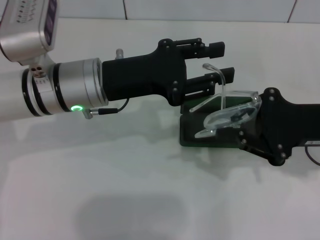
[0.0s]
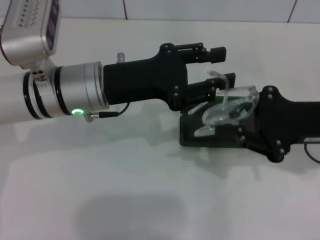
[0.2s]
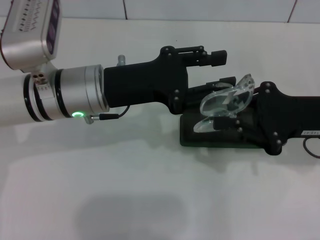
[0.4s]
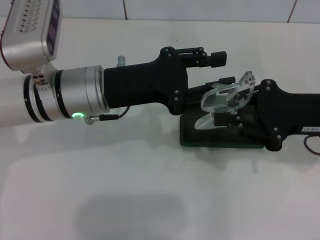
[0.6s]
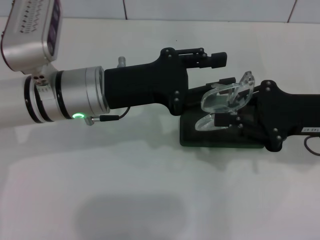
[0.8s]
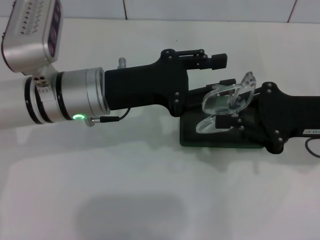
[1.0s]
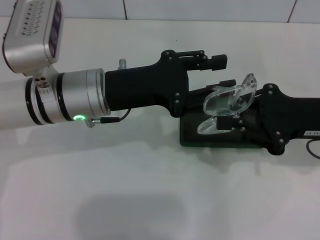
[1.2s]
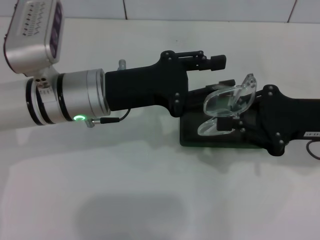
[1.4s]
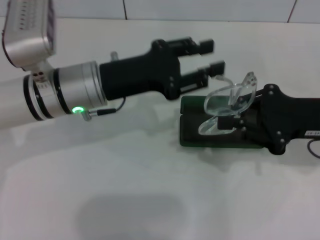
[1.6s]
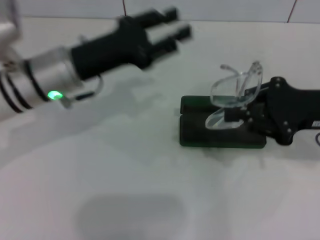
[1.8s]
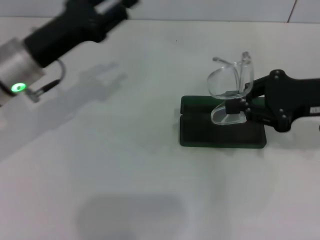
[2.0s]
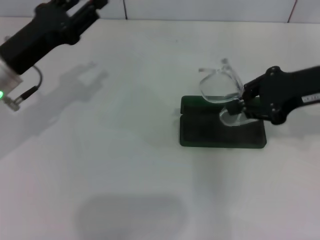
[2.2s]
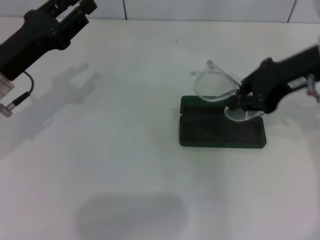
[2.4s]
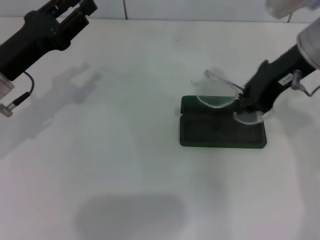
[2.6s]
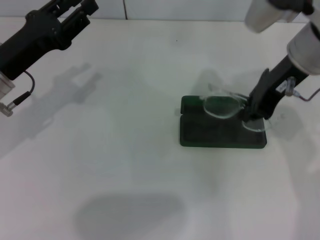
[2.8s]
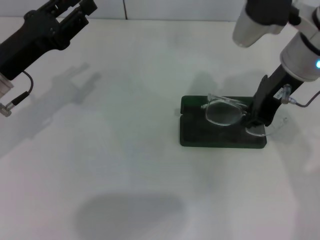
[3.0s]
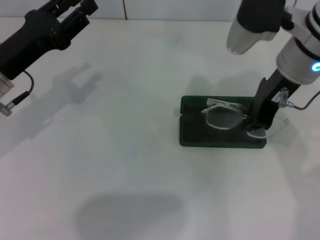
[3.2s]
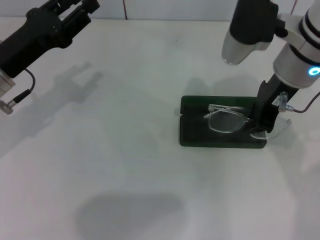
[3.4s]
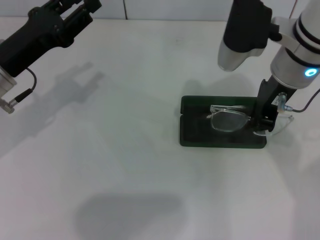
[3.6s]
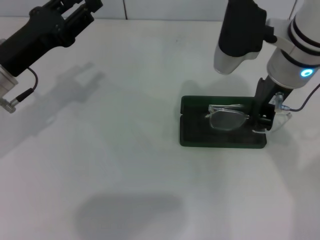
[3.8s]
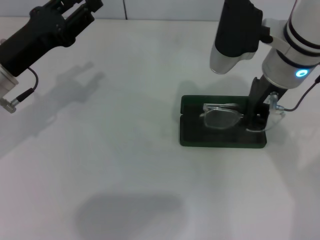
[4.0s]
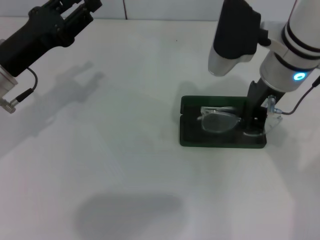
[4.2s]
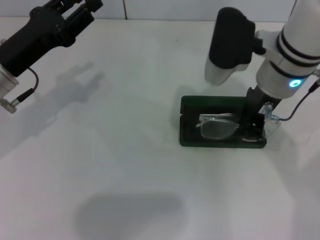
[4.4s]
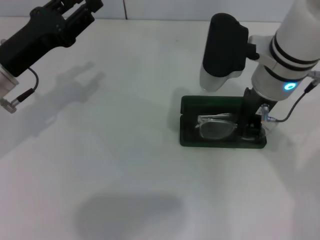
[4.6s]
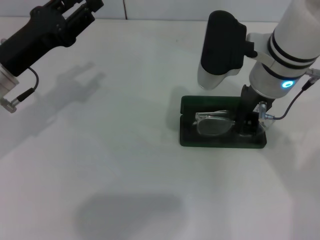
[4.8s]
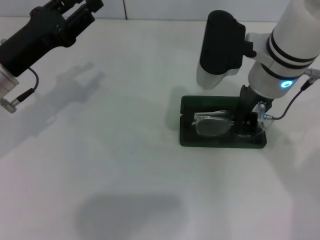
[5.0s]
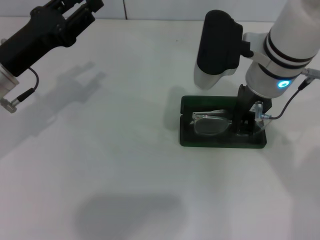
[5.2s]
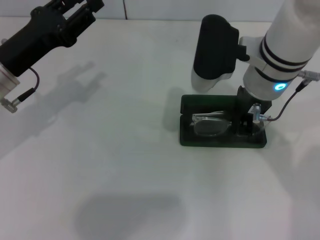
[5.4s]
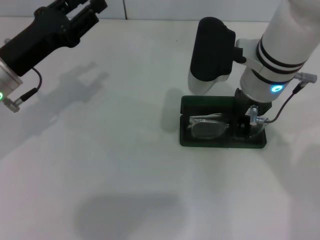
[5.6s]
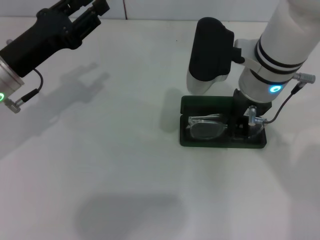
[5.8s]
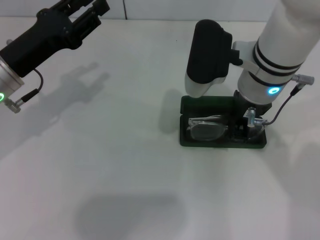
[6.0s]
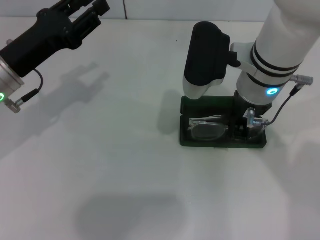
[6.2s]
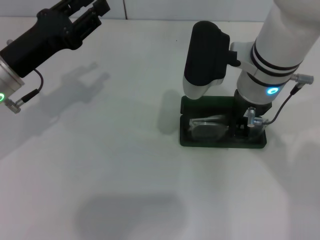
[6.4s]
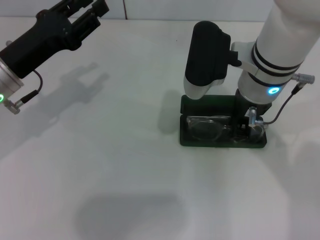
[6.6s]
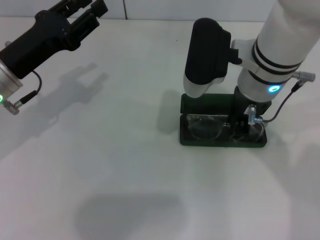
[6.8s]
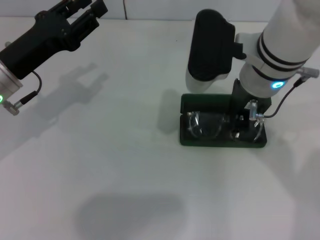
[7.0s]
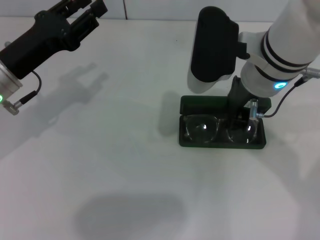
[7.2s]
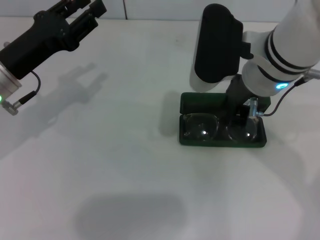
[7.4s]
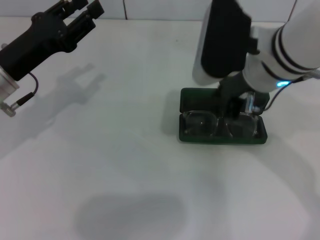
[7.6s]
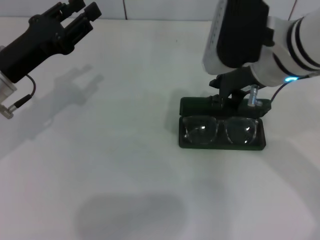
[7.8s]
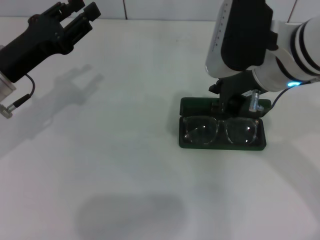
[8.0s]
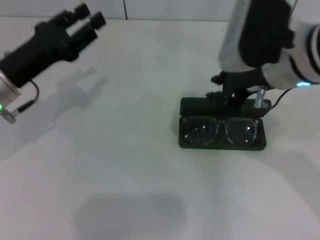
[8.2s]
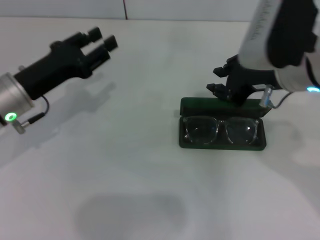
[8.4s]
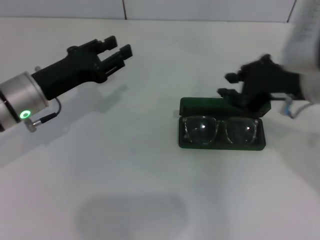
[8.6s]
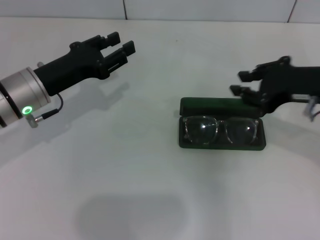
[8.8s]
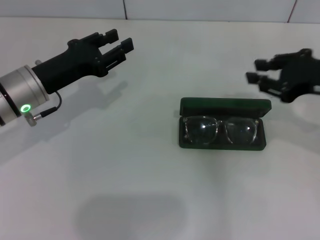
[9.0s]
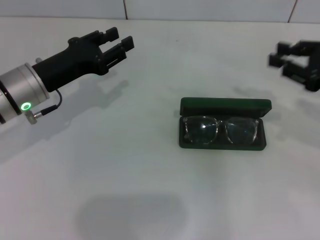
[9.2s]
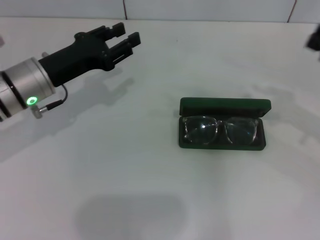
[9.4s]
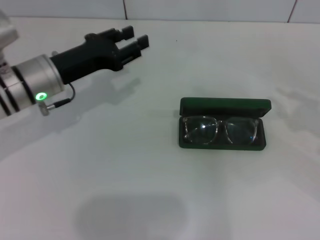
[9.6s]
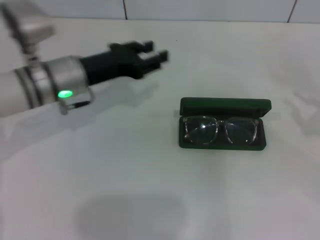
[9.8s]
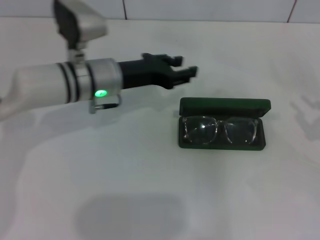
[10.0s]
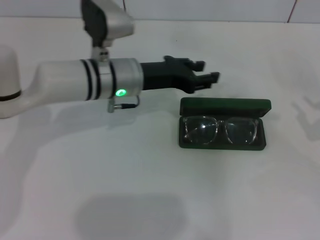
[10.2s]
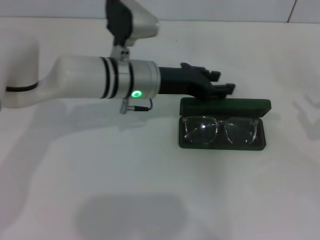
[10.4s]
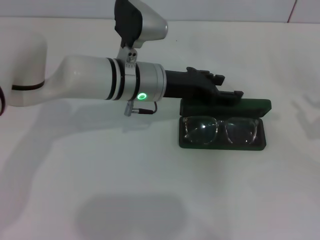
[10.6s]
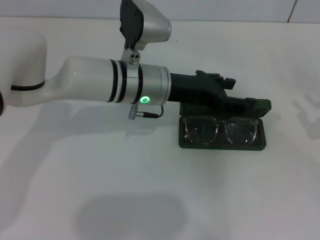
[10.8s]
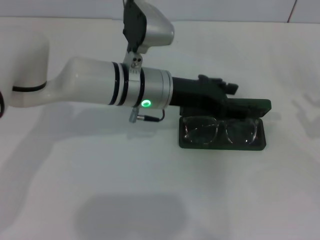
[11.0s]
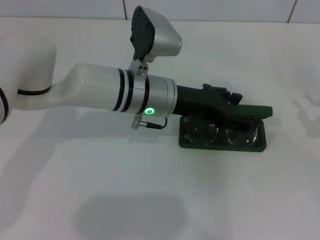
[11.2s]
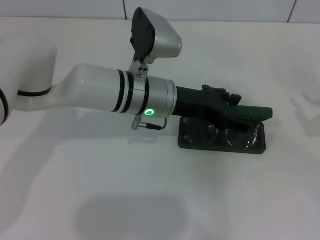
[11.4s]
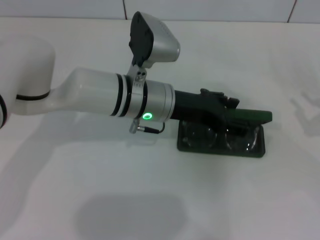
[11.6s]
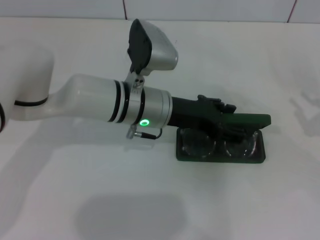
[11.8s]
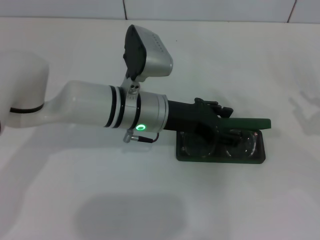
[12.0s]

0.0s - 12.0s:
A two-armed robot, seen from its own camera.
Step, 0.8s - 7.4s: Put the glasses into the case with your right hand.
0.0s - 1.6s: The grippers stay close to where they were, moving slightly.
1.6s - 3.0s: The left gripper heads to the left, covering some 10 cm; the right gripper moves to the left, upward and forward, about 15 cm.
3.0s - 4.4s: There are only small adjustments of the grippers.
4.4s - 7.6s: The grippers make only small movements.
7.6s - 9.0s: The right gripper is displaced to the right by approximately 15 cm.
9.0s - 10.4s: The right gripper goes about 15 cm to the right, downward and backward. Meanwhile the left gripper moves to the right, about 15 cm.
10.4s - 12.0s: The grippers move only a little.

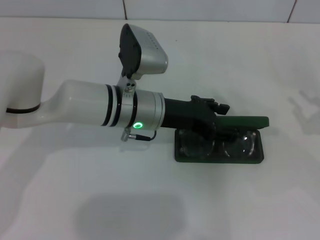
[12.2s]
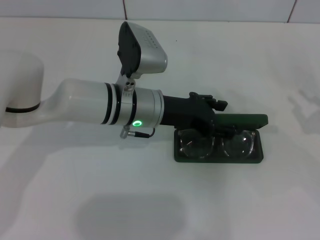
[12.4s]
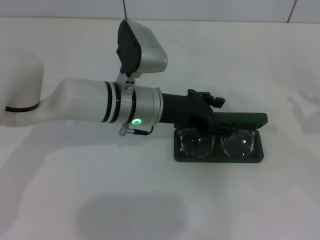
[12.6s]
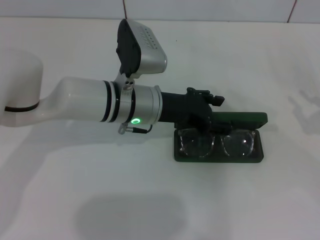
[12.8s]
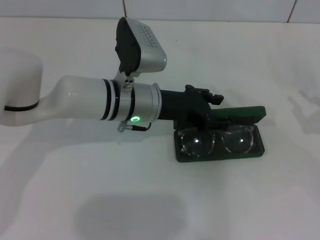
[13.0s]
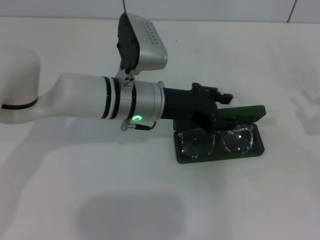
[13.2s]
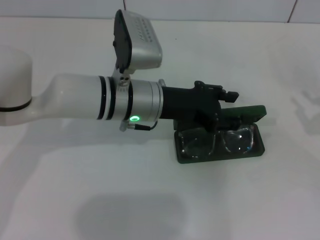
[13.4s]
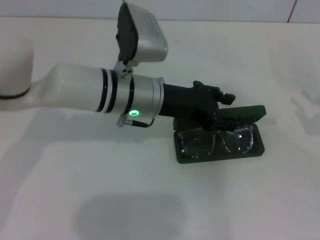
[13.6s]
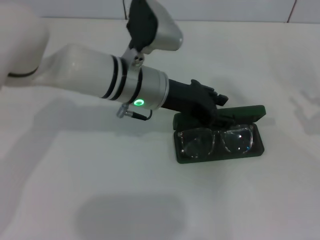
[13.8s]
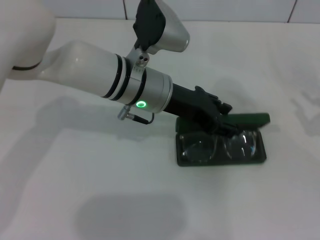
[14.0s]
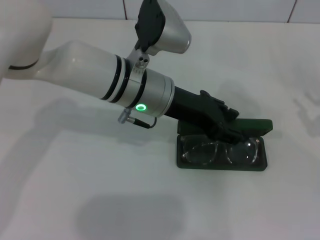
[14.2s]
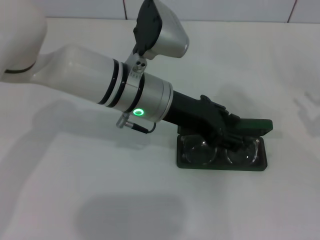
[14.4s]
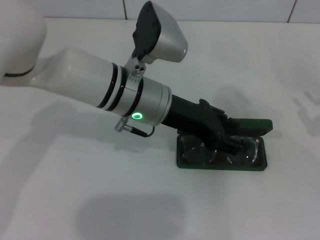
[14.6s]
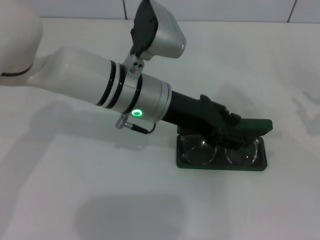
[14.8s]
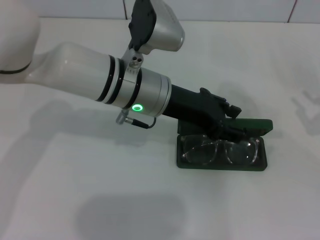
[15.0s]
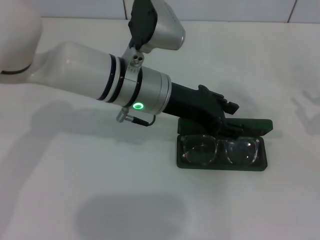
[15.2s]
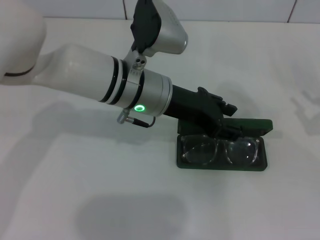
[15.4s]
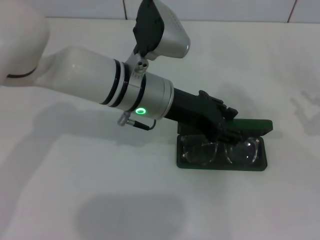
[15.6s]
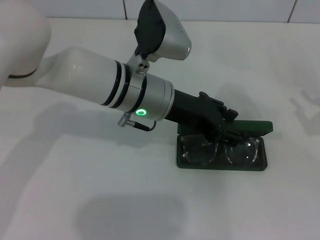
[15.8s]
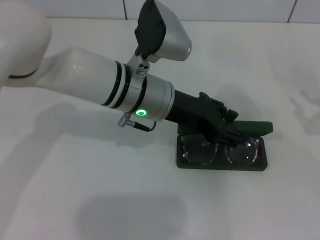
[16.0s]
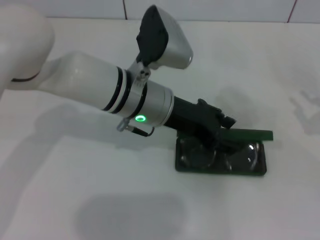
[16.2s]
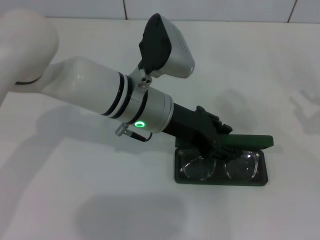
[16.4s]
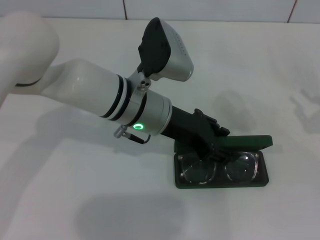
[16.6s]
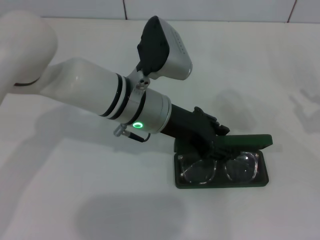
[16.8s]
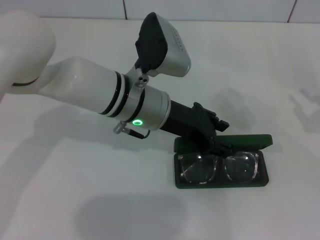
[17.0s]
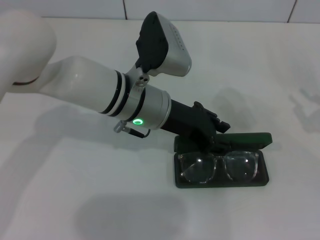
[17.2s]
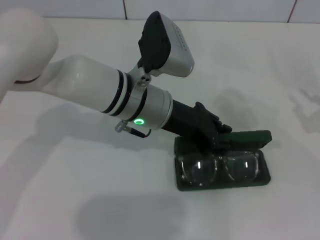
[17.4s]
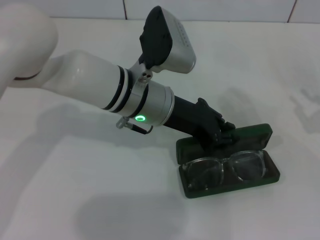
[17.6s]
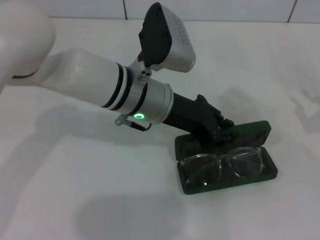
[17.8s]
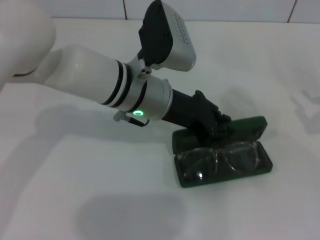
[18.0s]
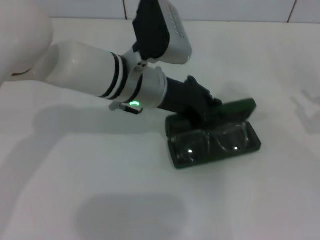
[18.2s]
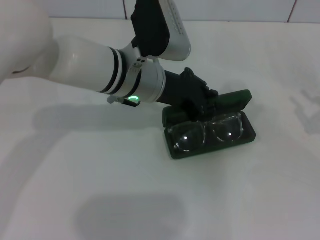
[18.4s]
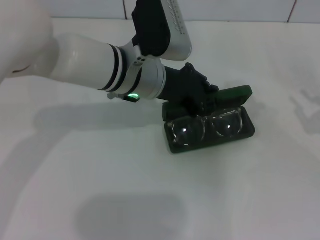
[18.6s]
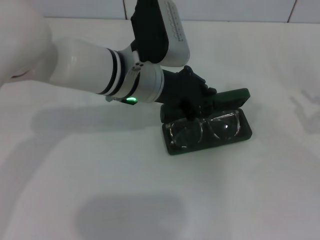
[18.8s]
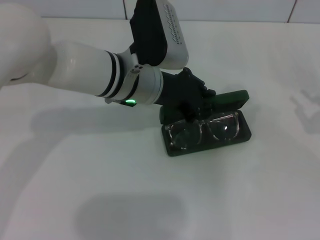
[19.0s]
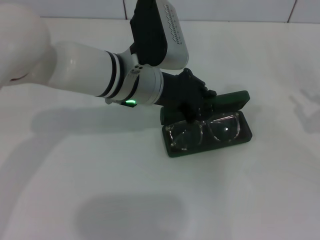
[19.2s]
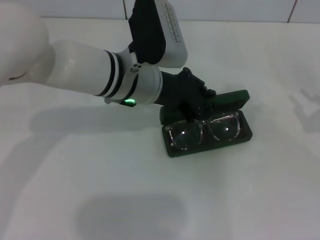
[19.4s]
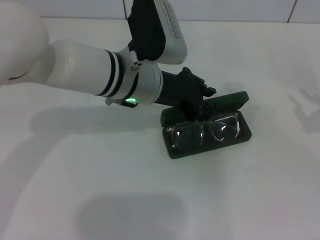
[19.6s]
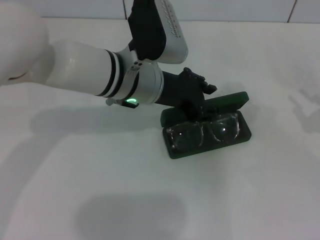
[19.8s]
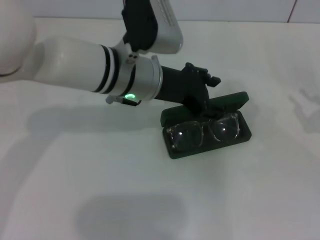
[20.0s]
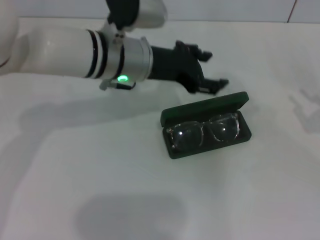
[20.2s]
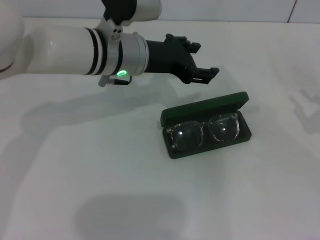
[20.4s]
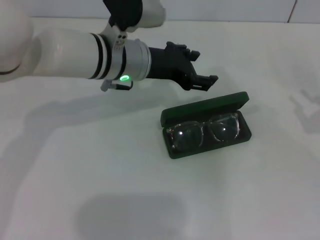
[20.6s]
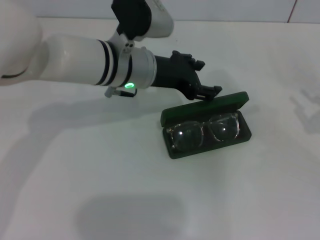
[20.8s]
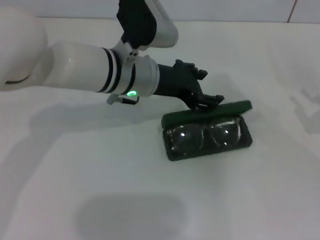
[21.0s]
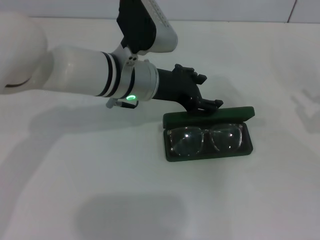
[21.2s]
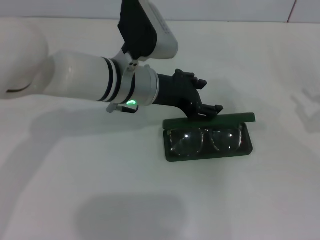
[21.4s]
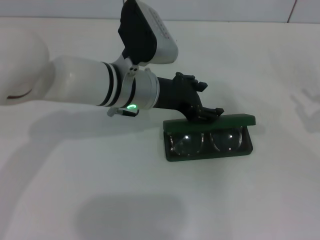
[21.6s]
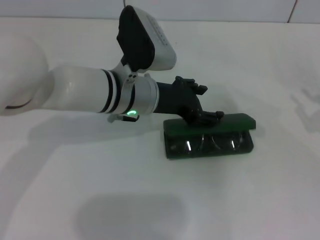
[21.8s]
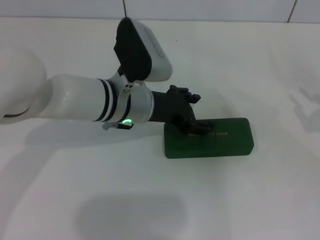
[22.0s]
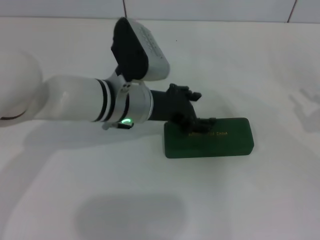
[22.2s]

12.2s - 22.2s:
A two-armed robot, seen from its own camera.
Step, 12.2s - 22.0s: Close the glasses case with your left hand.
12.2s - 16.4s: The grippers stay close to where they were, moving slightly.
16.4s - 18.0s: The left gripper closes its fingers.
18.0s - 19.4s: The grippers stay close to where they were, moving slightly.
19.4s - 20.8s: The left gripper opens up.
20.8s - 22.2s: The left gripper changes place by about 5 cm.
